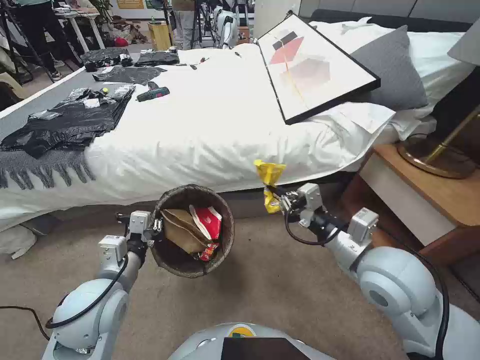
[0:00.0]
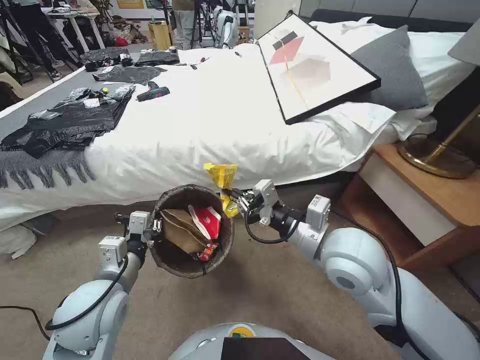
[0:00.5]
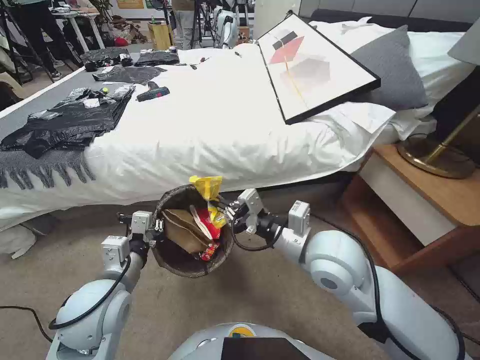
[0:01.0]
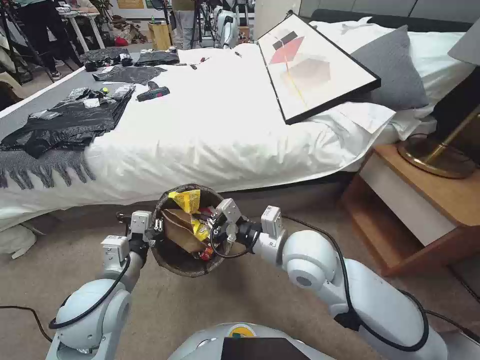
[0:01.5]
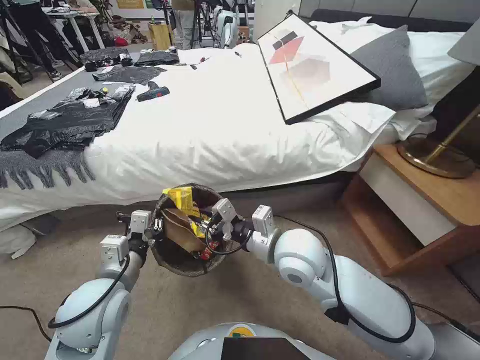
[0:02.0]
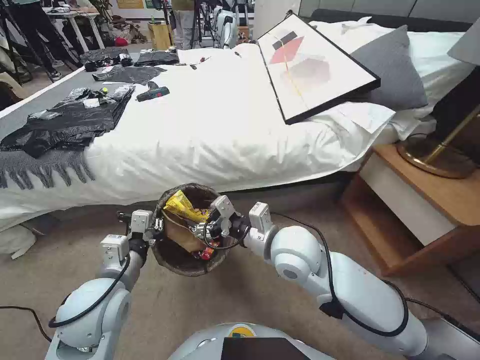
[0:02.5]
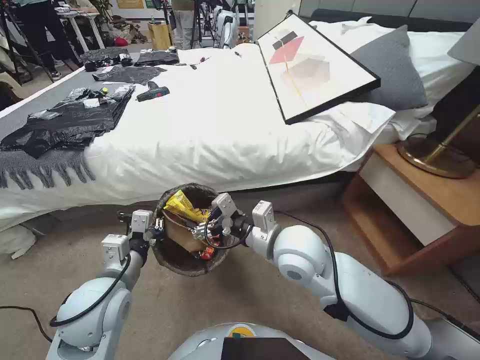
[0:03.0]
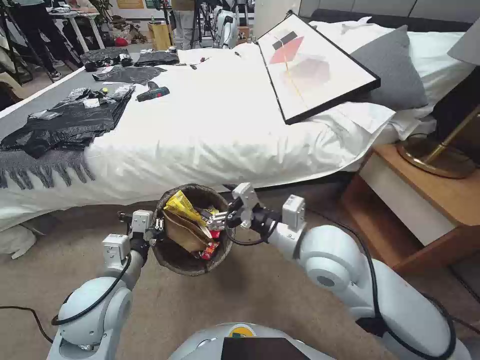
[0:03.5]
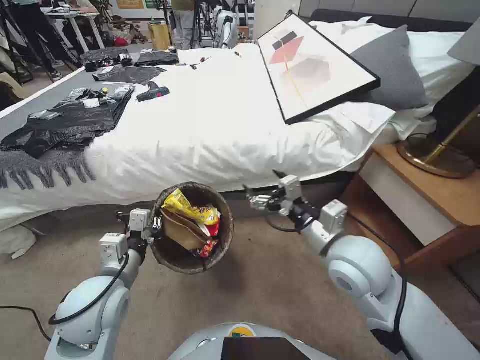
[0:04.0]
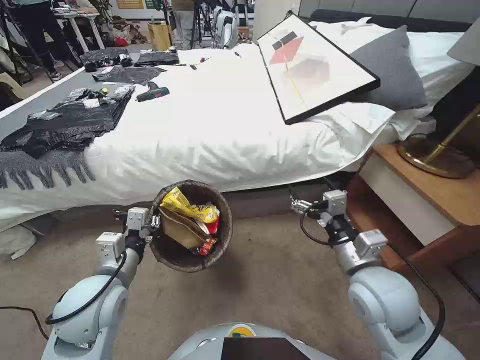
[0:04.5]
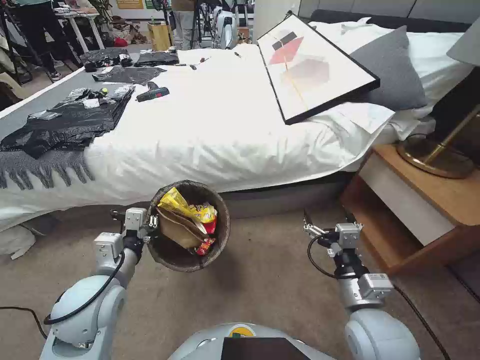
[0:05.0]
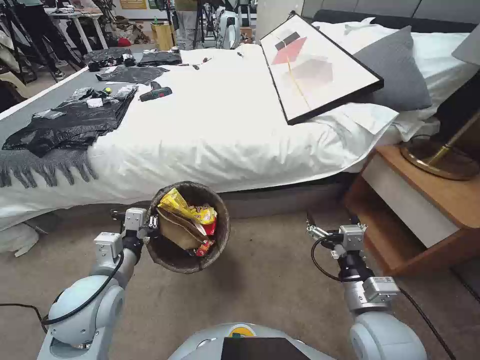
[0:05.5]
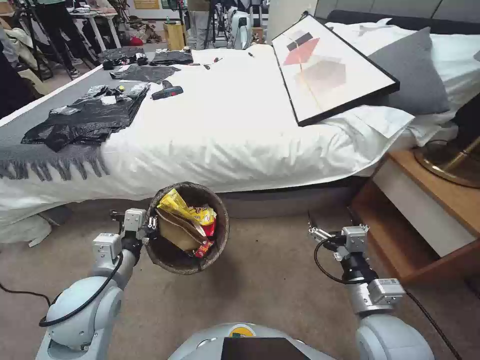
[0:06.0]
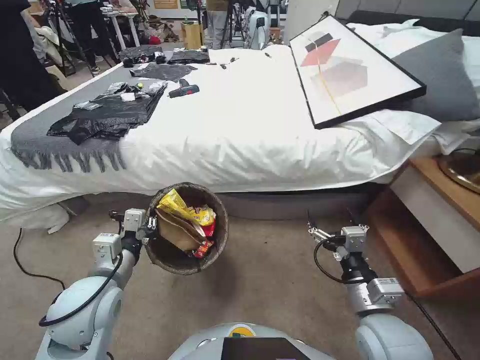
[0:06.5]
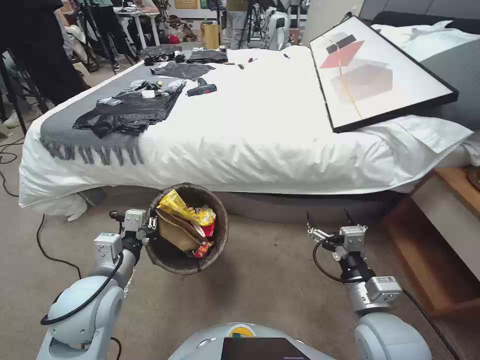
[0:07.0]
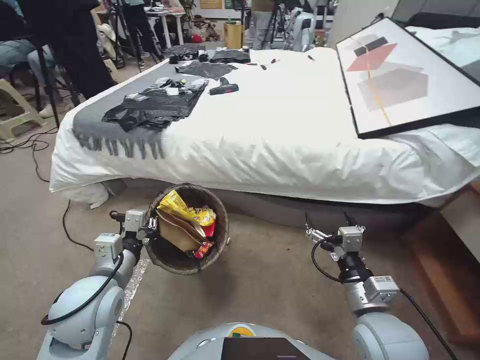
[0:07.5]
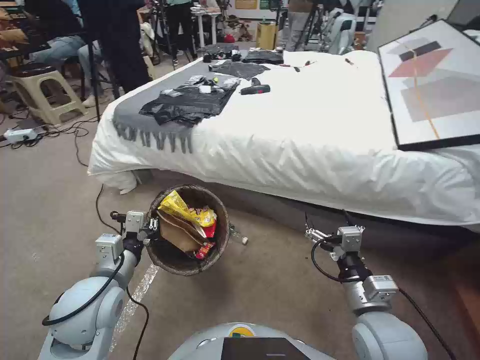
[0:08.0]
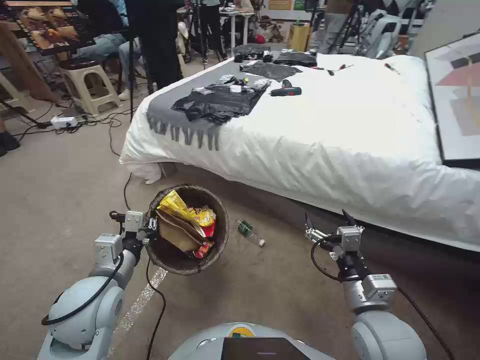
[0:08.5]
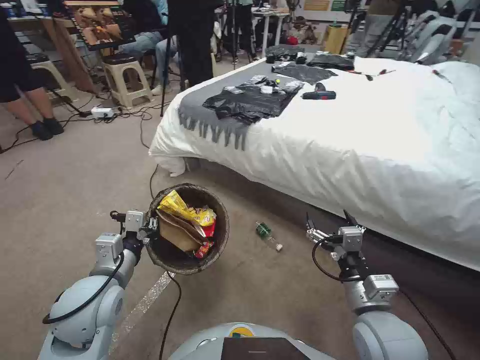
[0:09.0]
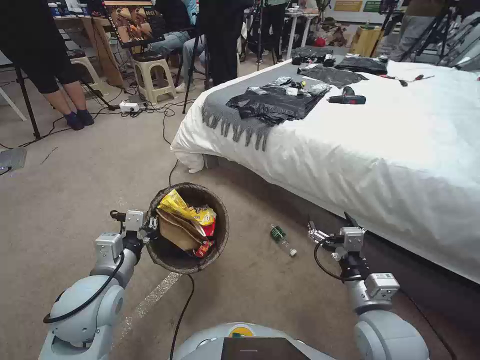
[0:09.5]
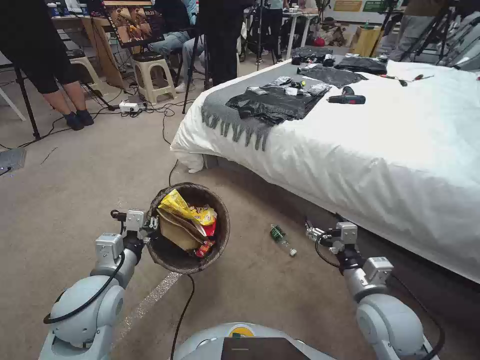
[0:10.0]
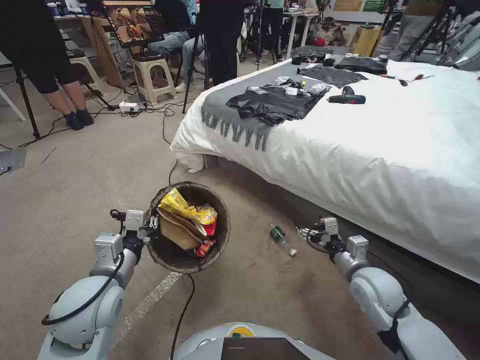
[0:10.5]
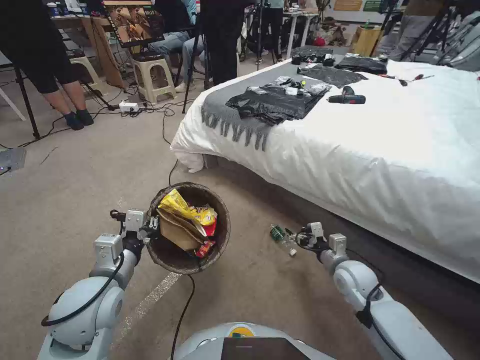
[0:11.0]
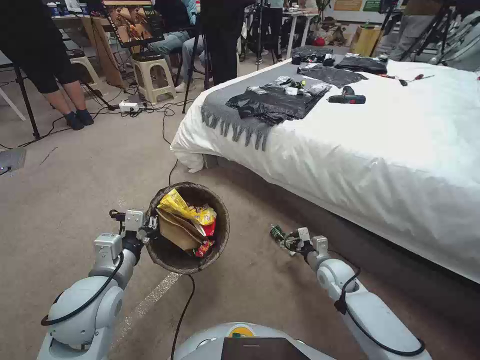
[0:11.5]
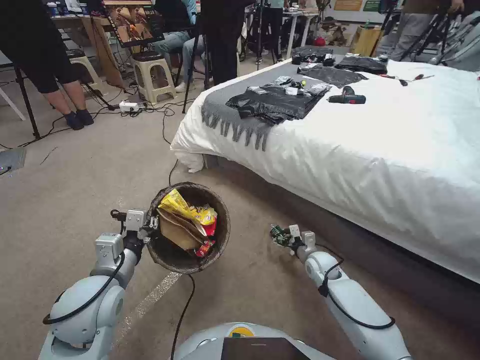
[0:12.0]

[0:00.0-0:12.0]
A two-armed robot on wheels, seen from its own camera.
Task of the whole recording: Pick up the trash bin, then pick up the garbage from the floor and place it into the trash bin.
0:00.0 to 0:02.0: The right gripper travels to the left by some 15 cm.
0:02.0 to 0:04.0: The right gripper travels to the right by about 10 cm, and opens its fingers.
0:04.0 to 0:06.0: The right gripper is displaced backward, downward and to the right by about 15 cm.
0:10.0 to 0:12.0: The right gripper shifts about 25 cm downward and forward.

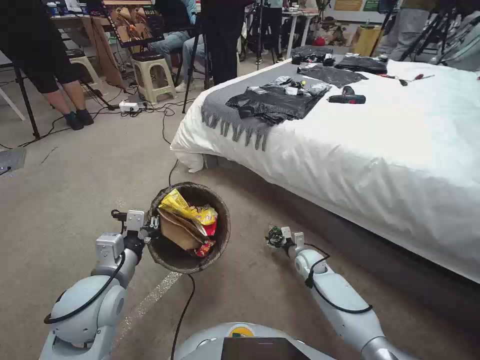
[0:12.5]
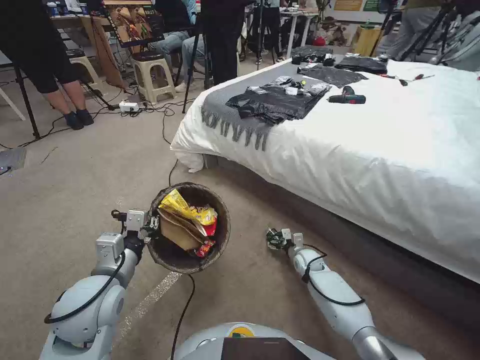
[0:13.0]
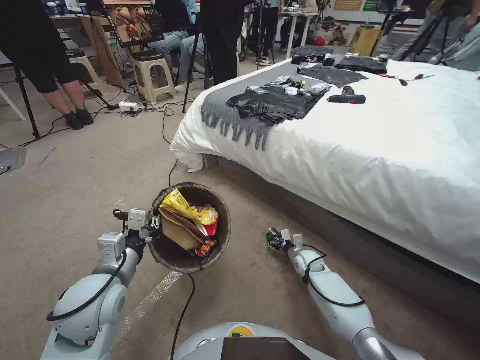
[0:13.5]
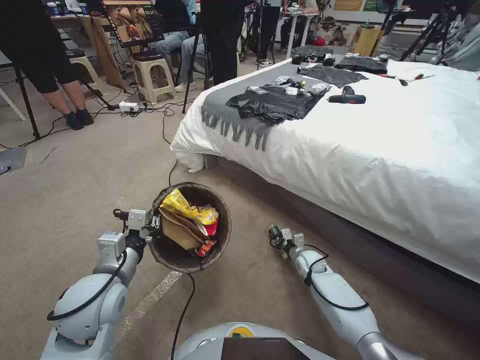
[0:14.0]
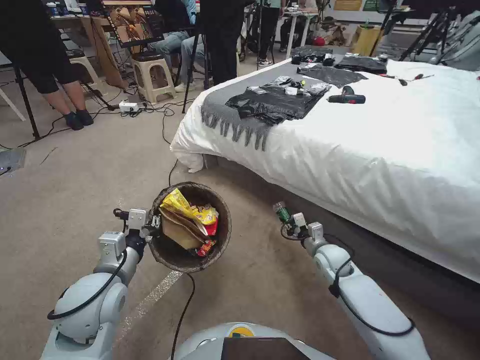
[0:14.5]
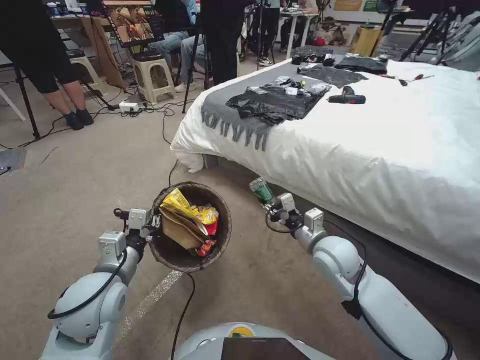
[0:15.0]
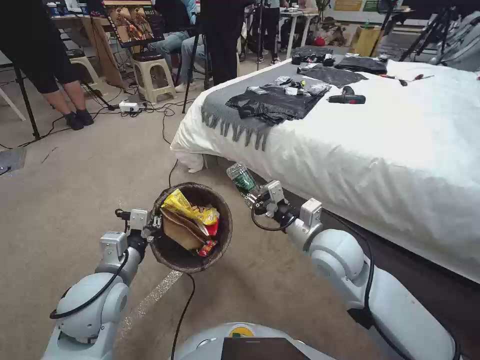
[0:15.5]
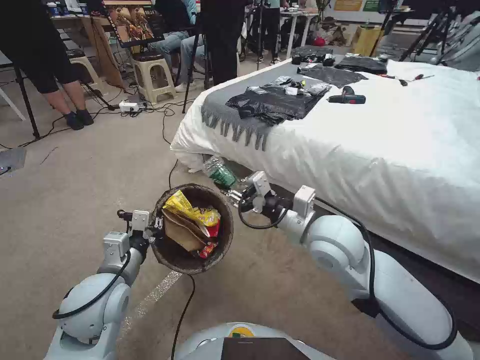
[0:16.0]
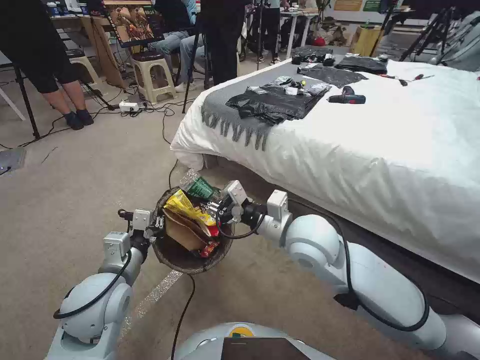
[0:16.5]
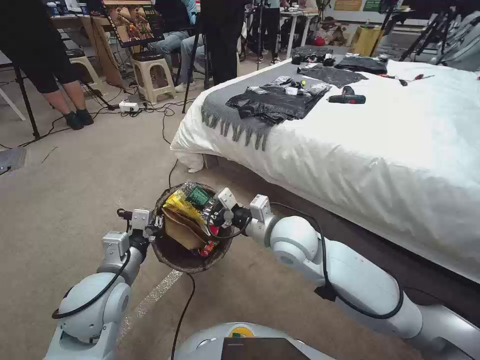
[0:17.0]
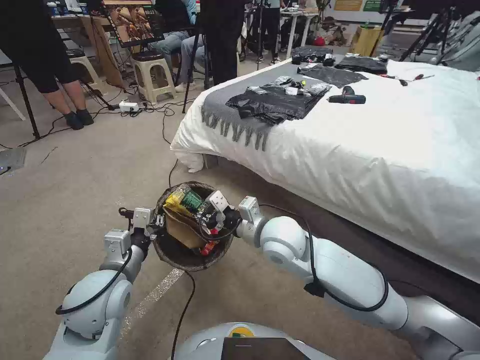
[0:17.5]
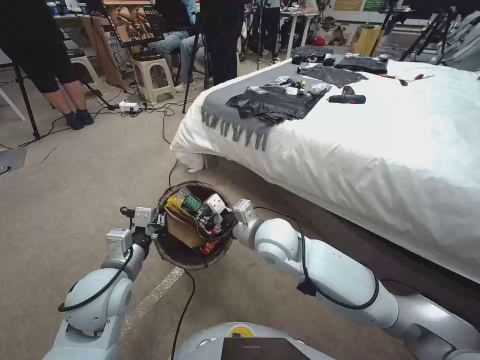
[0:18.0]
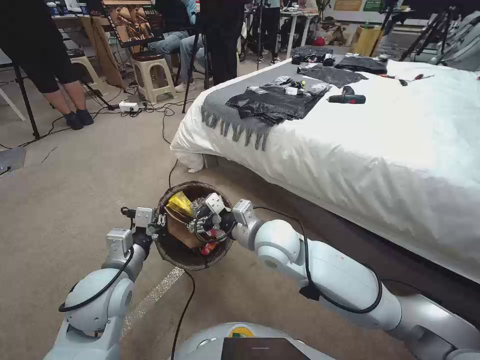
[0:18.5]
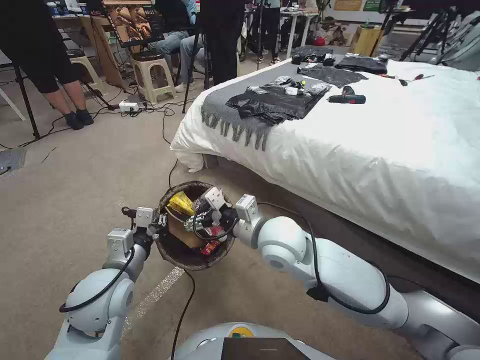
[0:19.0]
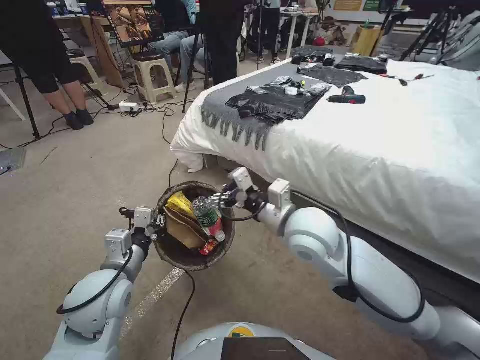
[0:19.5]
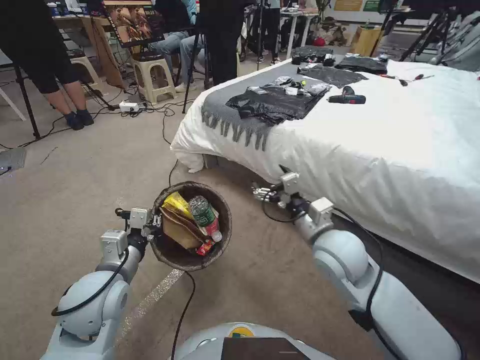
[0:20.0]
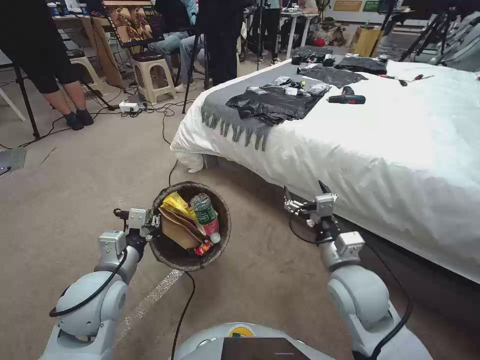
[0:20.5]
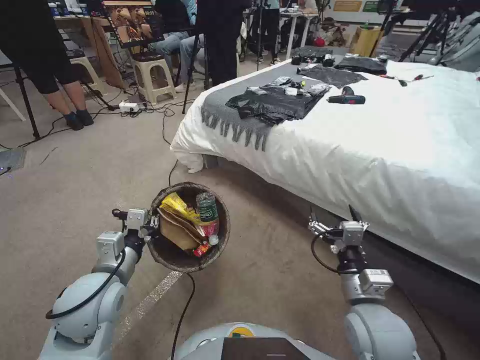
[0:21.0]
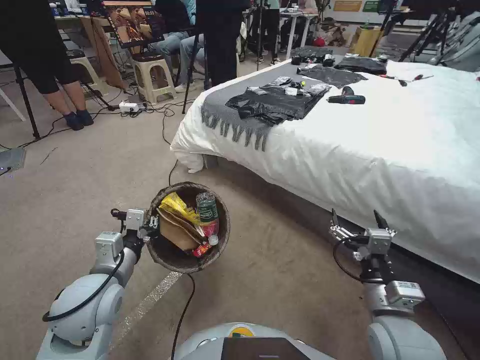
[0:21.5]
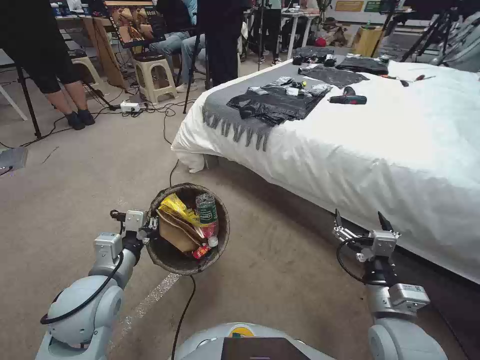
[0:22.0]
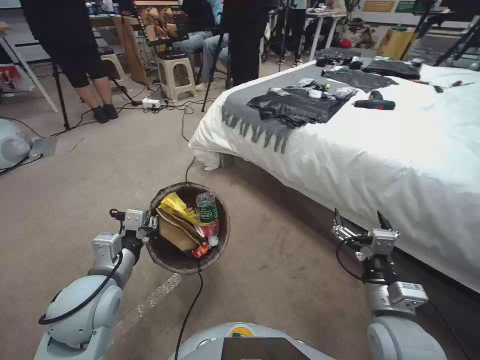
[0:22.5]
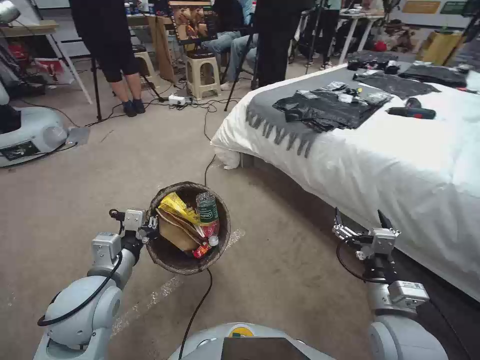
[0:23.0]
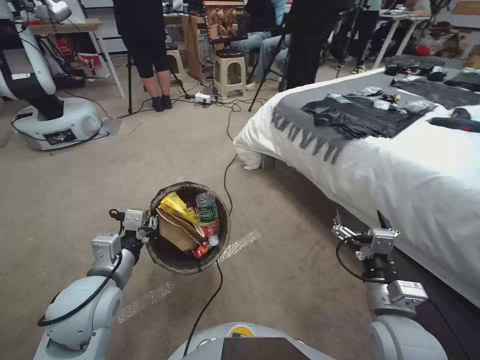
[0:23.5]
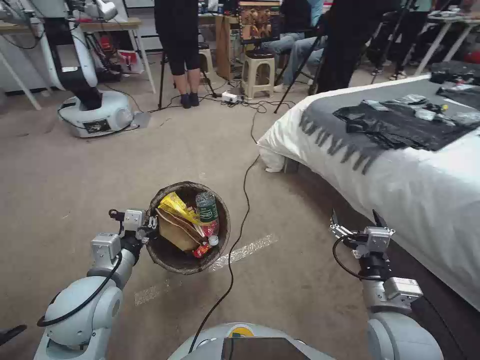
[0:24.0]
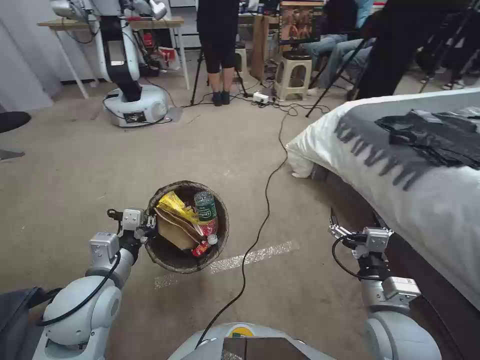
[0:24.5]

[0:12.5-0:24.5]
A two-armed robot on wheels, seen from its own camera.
Task of the whole recording: Pick up the trash bin, then pick up the garbage from the floor and place it into the trash bin.
0:12.5 to 0:14.5: The right gripper heads upward, covering roughly 5 cm, and closes up.
0:14.5 to 0:16.5: The right gripper heads upward and to the left, covering some 30 cm.
0:16.5 to 0:18.5: The right gripper shifts approximately 10 cm to the left and downward, and opens its fingers.
0:18.5 to 0:20.5: The right gripper shifts approximately 15 cm to the right and backward.
0:20.5 to 0:22.5: The right gripper heads backward and to the right, covering about 10 cm.

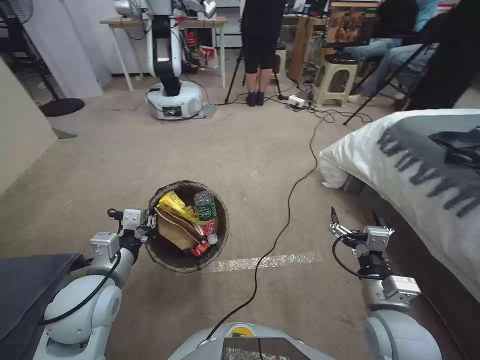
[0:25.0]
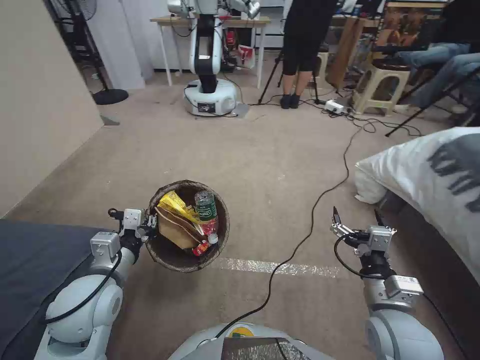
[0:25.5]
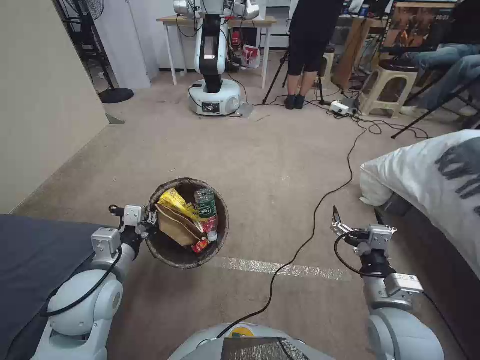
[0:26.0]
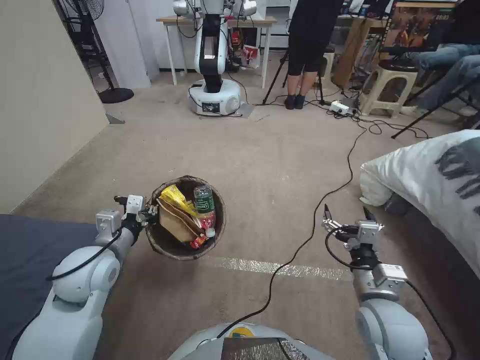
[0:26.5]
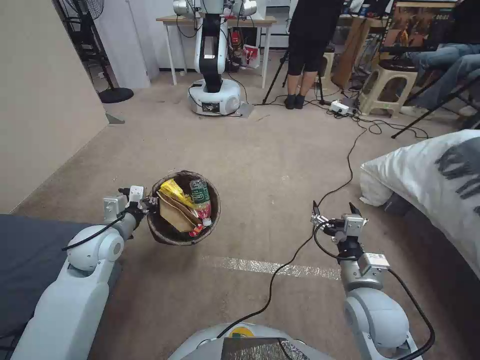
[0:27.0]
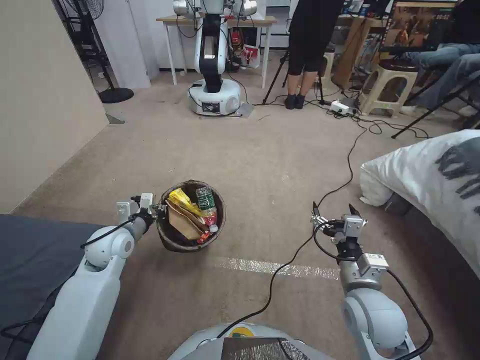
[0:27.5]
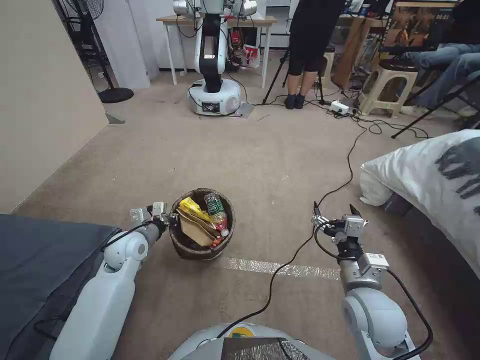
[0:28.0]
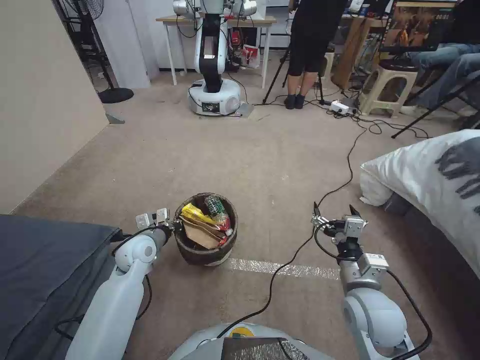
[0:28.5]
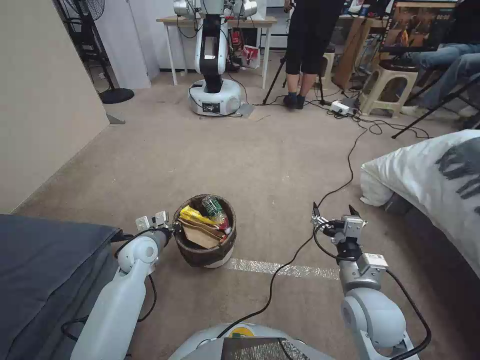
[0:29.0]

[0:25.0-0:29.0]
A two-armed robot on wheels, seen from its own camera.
Task of the whole recording: Pick up the trash bin, then pick up the garbage from the floor and place it into the trash bin.
0:25.0 to 0:27.0: The left gripper goes approximately 10 cm forward.
0:27.0 to 0:29.0: The left gripper is displaced downward by about 10 cm.
